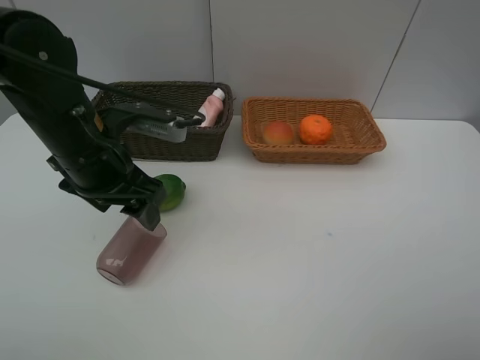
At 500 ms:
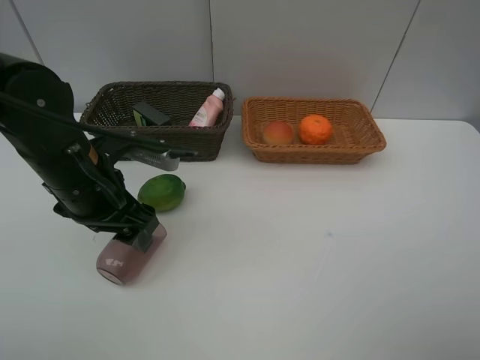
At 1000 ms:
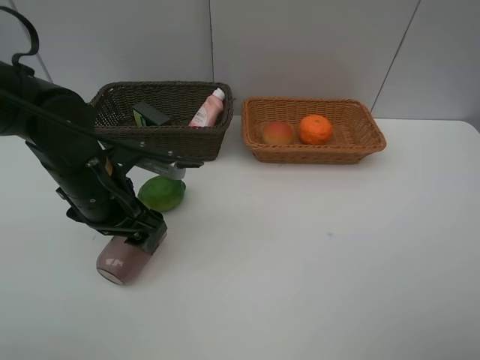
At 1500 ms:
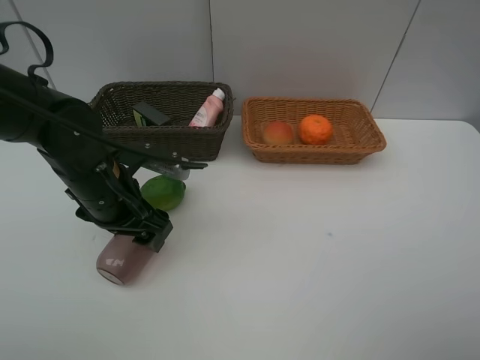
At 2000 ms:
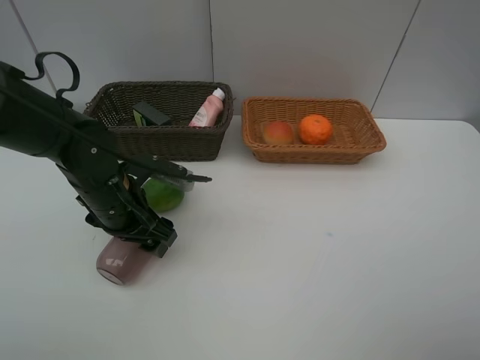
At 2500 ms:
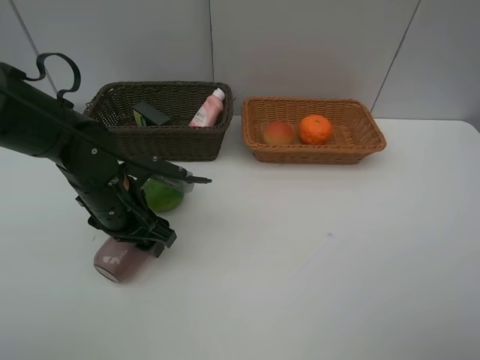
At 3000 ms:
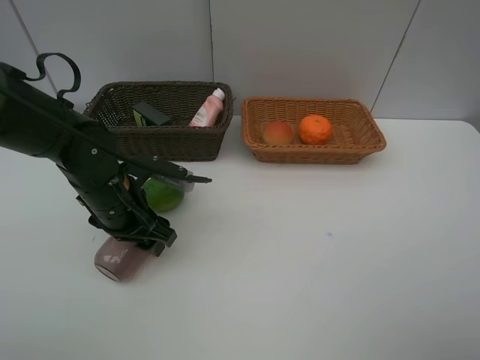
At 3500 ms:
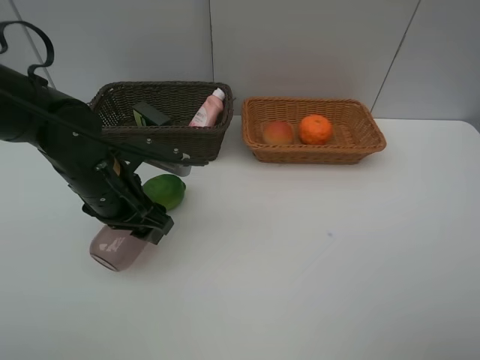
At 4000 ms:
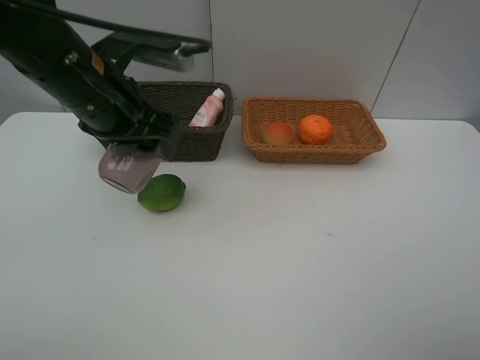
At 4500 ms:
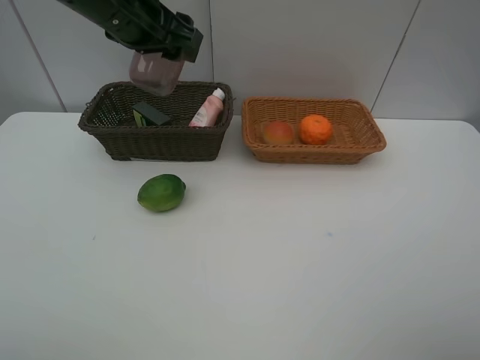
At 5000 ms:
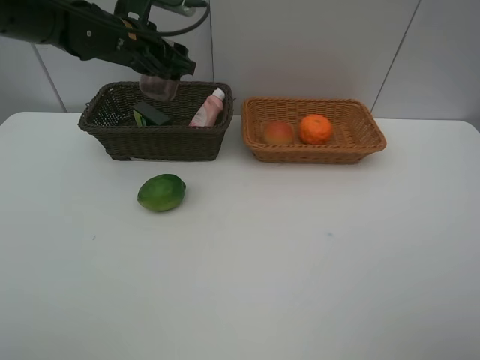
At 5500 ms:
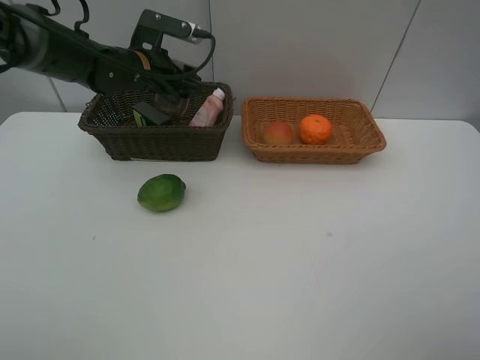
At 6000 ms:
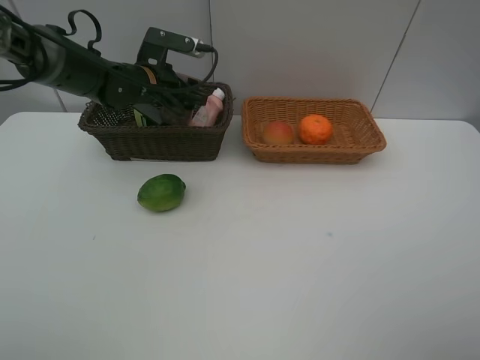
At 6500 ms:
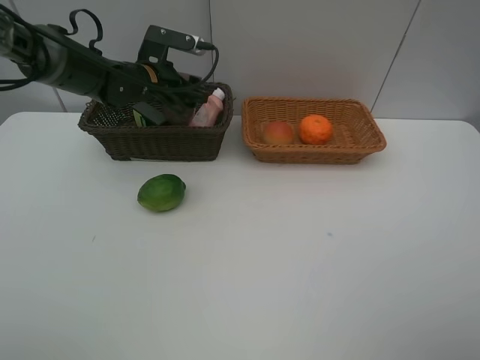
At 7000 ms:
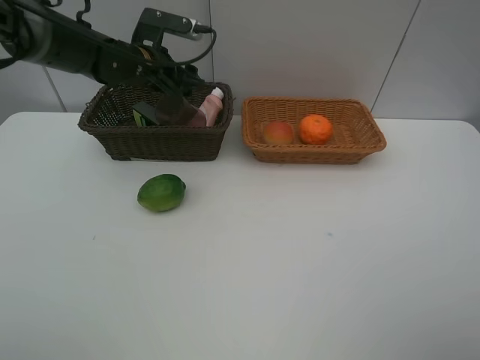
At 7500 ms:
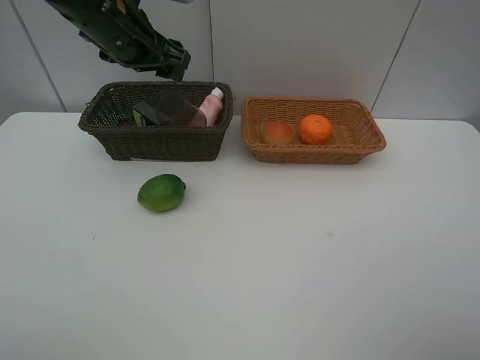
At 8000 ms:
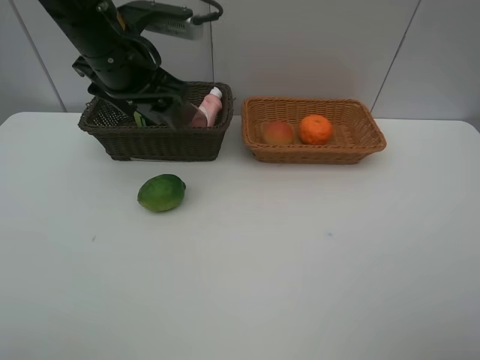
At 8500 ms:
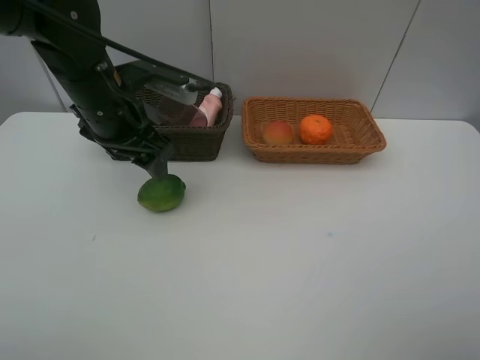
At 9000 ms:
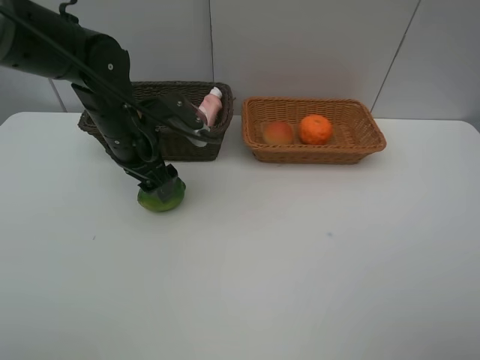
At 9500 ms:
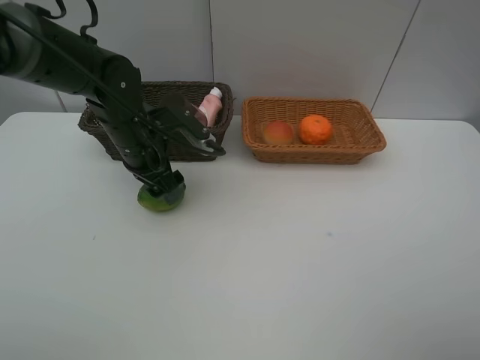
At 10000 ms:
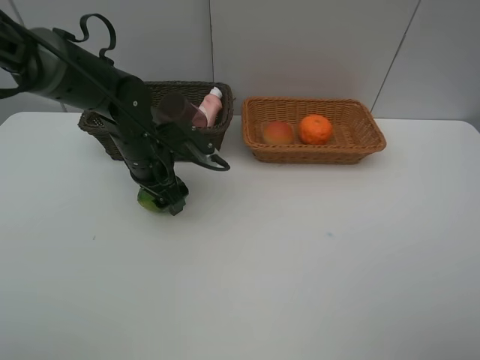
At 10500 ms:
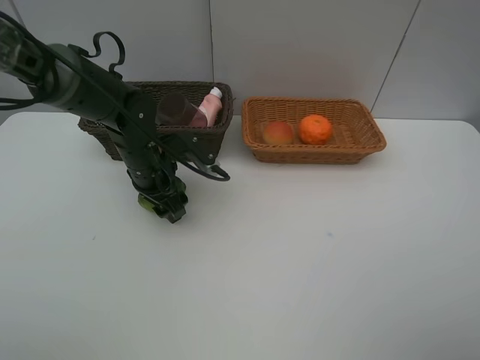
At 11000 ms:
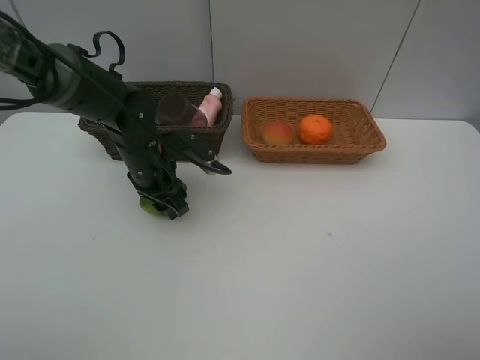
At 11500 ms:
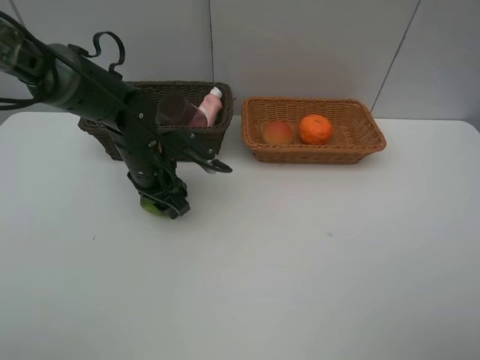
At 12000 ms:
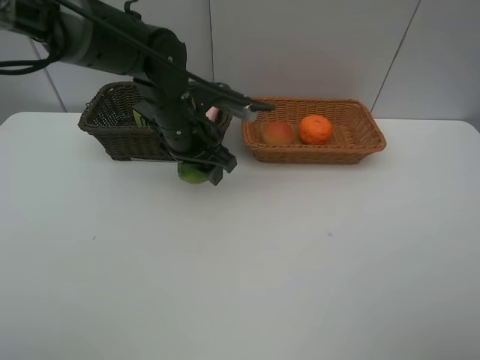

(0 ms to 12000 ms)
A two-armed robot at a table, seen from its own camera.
Task of the whole recording: place multiple objects separately in different baskets.
0 ms - 2000 ms: The left gripper travels downward by some 10 cm.
2000 ms - 4000 ms: The left gripper is displaced upward by some 15 cm.
4000 ms - 6000 ms: The left gripper is displaced forward and downward by about 20 cm.
6000 ms - 8000 ms: The left gripper is displaced upward and backward by about 15 cm.
8000 ms - 10000 ms: The left gripper travels downward by about 15 cm.
10000 ms - 12000 ms: The left gripper is displaced to the right and upward by some 10 cm, and closes up.

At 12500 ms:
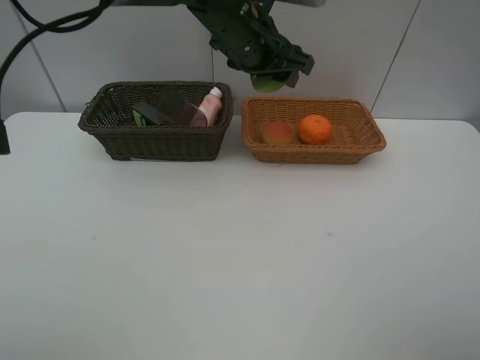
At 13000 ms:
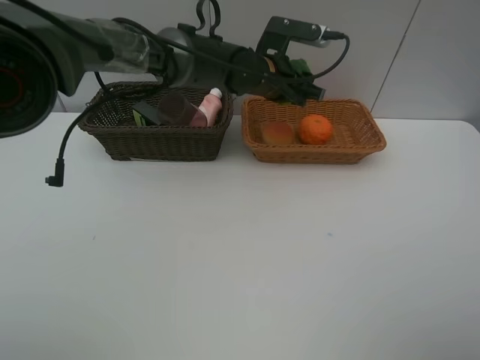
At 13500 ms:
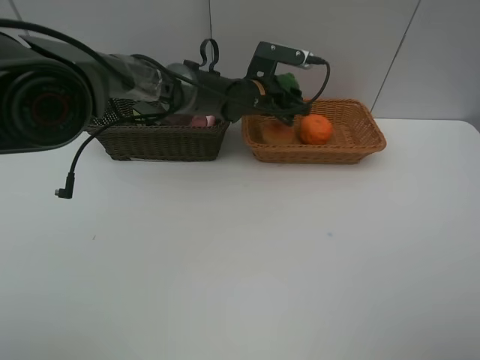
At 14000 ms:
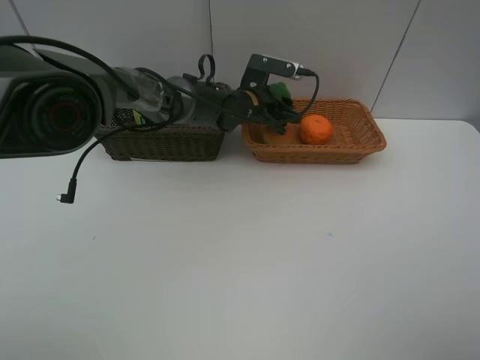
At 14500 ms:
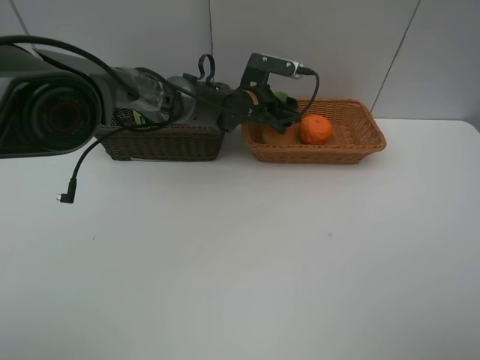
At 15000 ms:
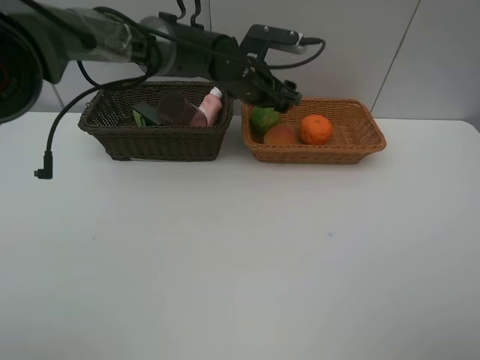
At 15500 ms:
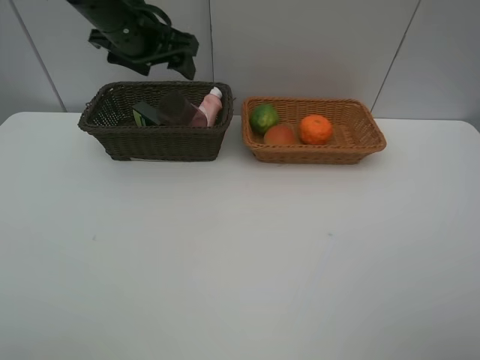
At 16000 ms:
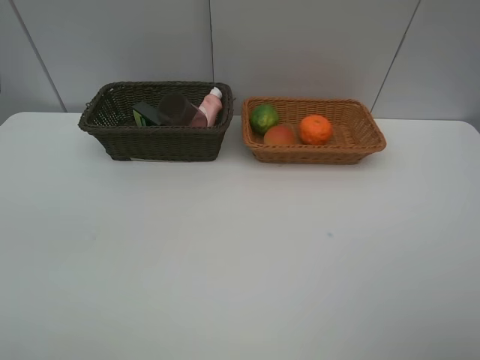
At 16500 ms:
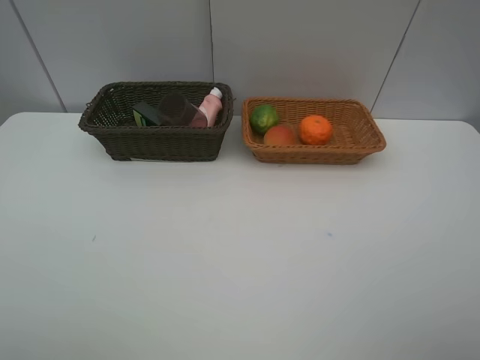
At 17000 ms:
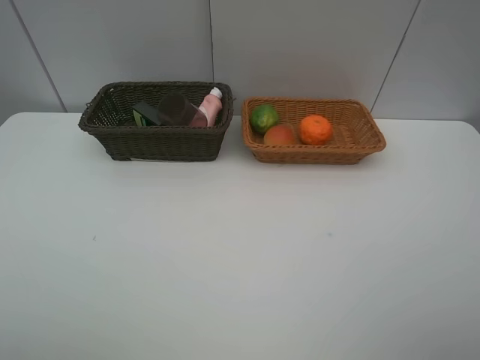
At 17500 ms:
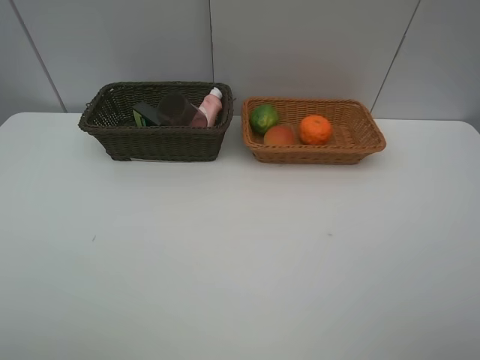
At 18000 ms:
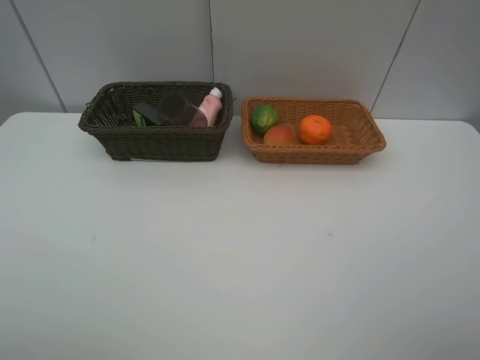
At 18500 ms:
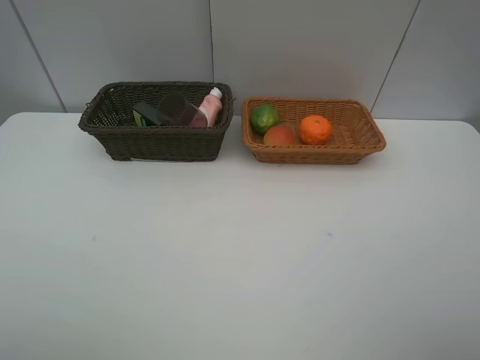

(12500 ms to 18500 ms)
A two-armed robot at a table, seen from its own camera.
Task of the whole recording: place multiple objects separately in different baskets.
12500 ms - 14500 ms: The left gripper goes approximately 15 cm downward and forward, and opens.
14500 ms - 16500 ms: The left gripper travels backward, to the left and upward by roughly 60 cm.

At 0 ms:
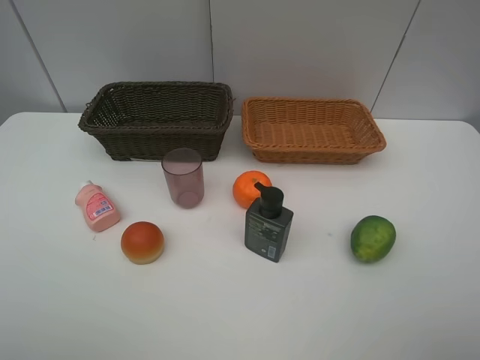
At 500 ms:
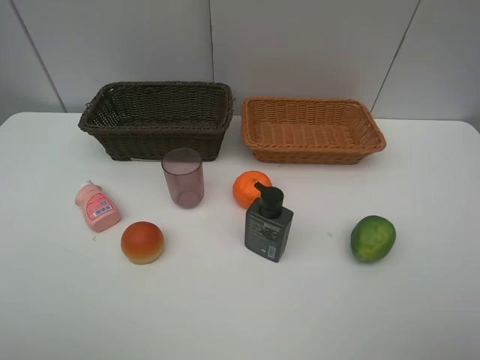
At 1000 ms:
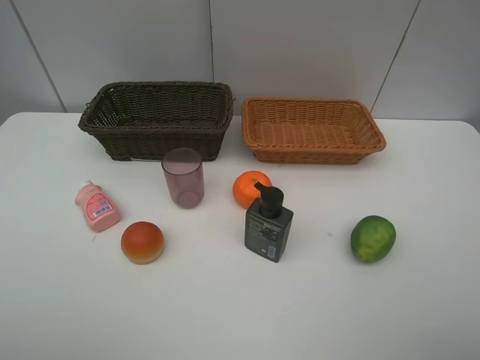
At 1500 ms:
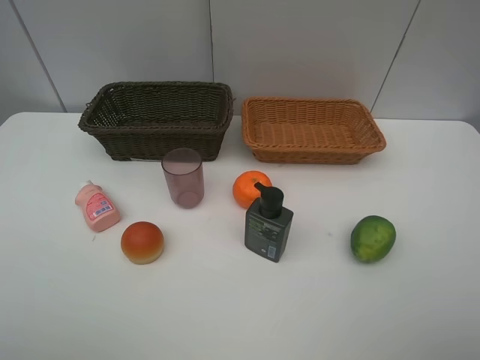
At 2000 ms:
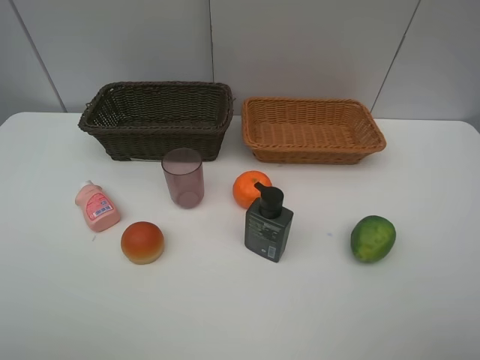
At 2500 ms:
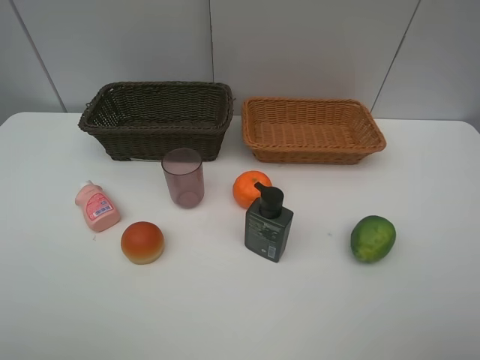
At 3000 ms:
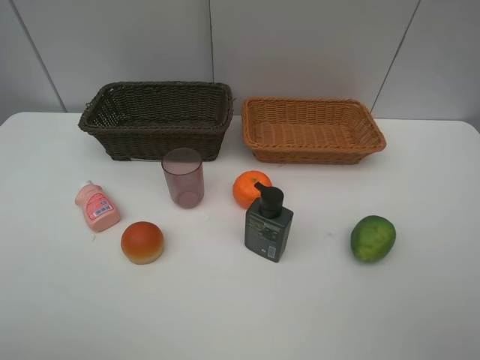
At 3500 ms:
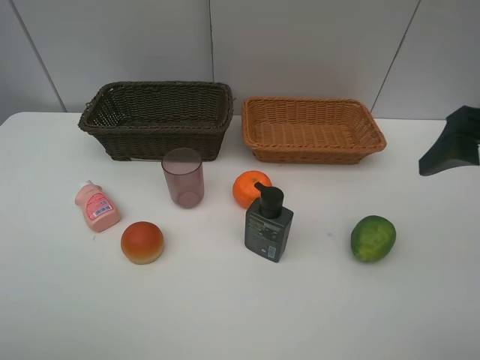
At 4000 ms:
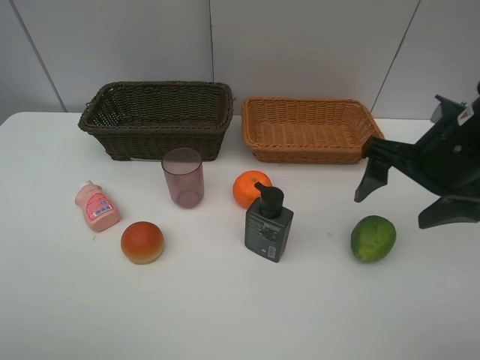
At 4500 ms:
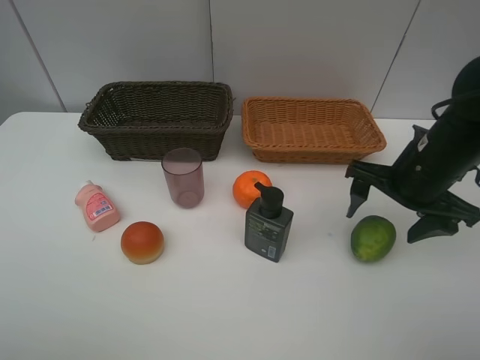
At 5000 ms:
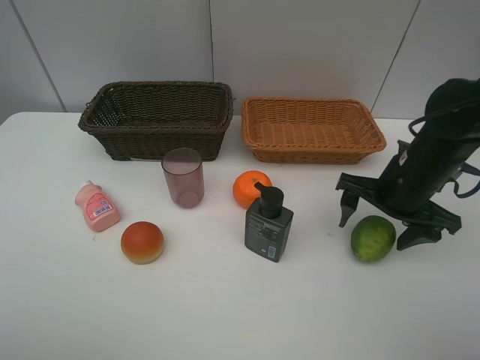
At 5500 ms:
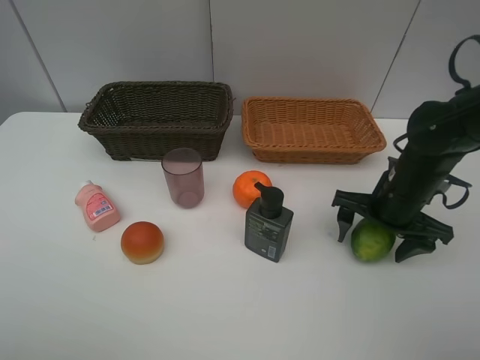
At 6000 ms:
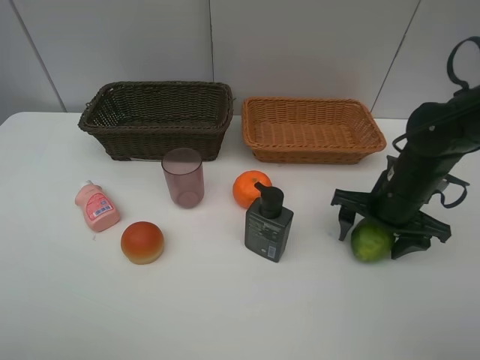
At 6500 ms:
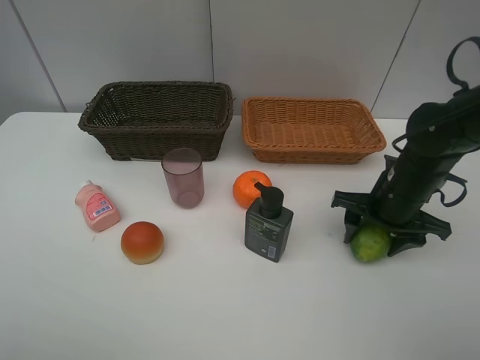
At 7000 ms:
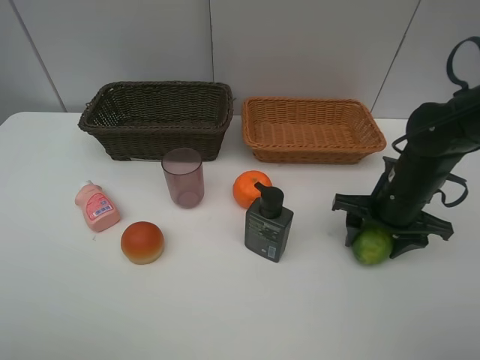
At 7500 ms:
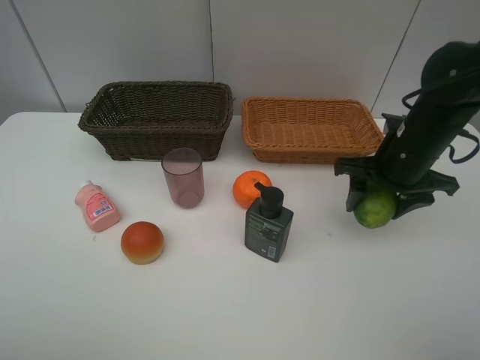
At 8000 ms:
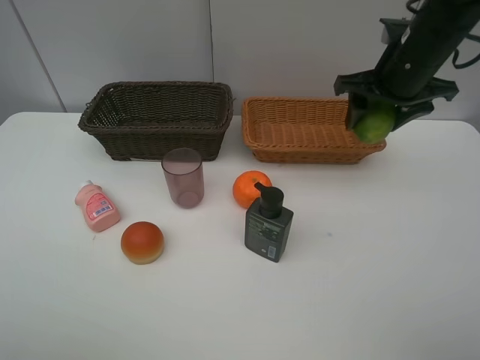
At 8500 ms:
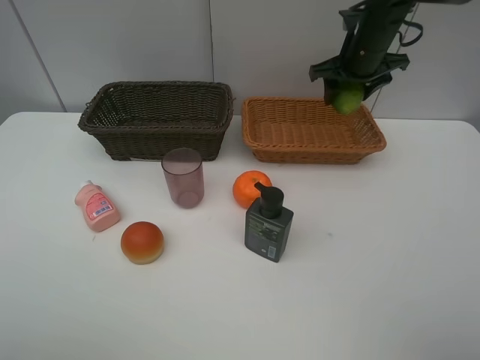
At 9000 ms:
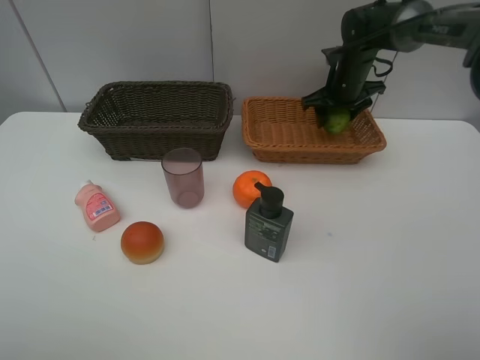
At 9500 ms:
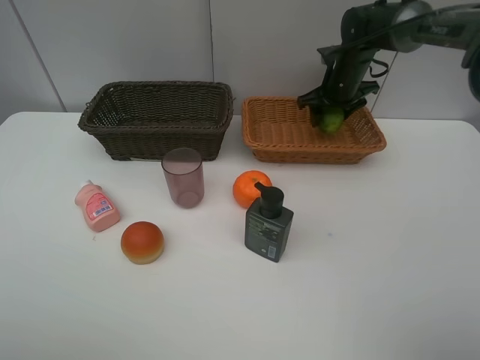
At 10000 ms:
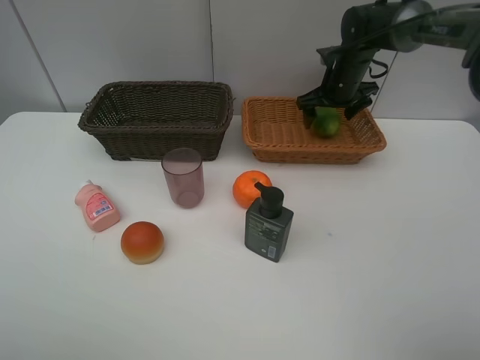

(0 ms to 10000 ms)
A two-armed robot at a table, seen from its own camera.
Task of the whole recording: place multiple objects separately in different baskets.
0 ms - 2000 ms: Neither gripper changes place.
2000 ms - 4000 ms: The right gripper goes about 25 cm forward.
4000 ms - 6000 ms: The right gripper heads downward, covering roughly 10 cm.
6000 ms - 8000 ms: The right gripper shifts roughly 15 cm upward and forward.
8000 ms - 10000 ms: The right gripper heads forward and downward, covering approximately 15 cm, and opens its fingers.
